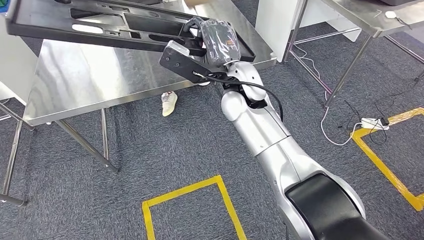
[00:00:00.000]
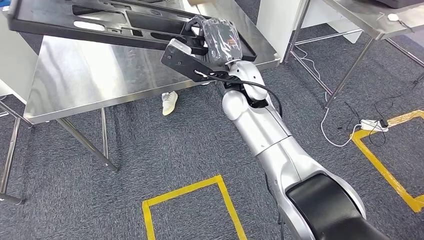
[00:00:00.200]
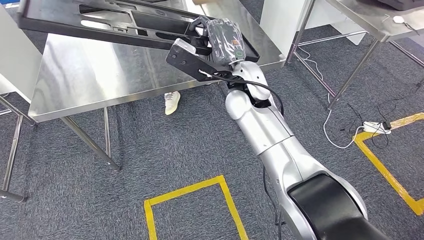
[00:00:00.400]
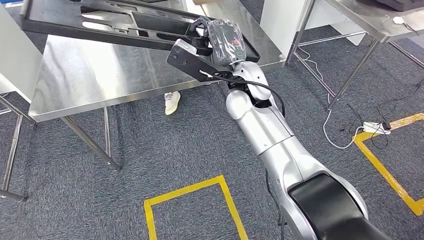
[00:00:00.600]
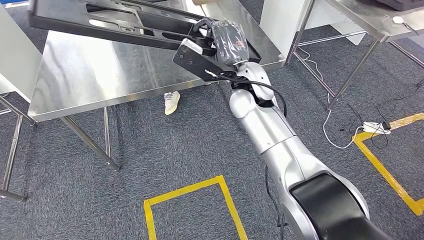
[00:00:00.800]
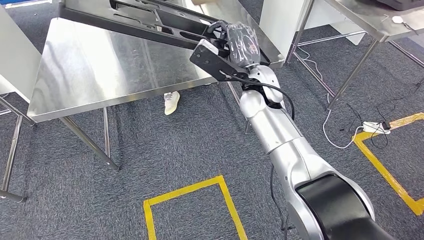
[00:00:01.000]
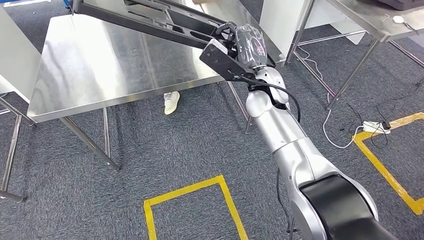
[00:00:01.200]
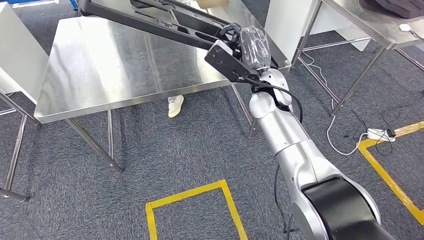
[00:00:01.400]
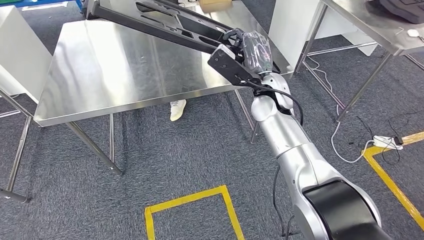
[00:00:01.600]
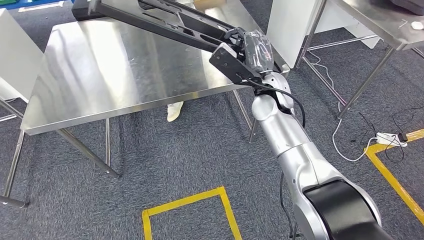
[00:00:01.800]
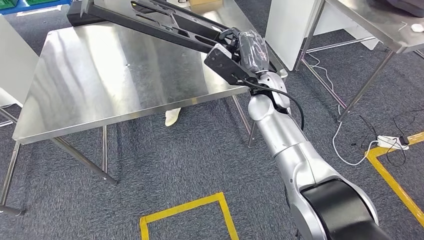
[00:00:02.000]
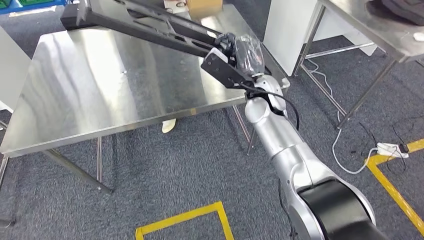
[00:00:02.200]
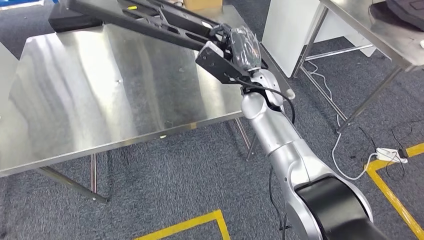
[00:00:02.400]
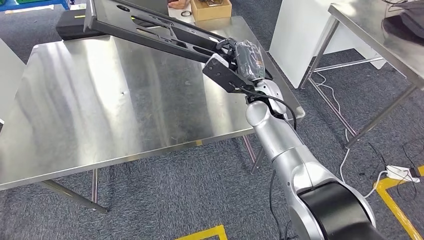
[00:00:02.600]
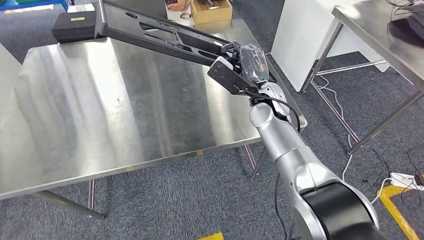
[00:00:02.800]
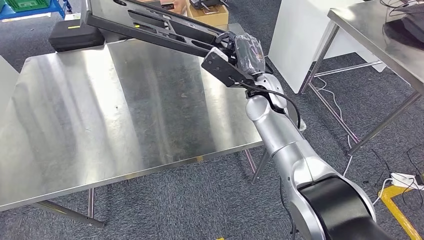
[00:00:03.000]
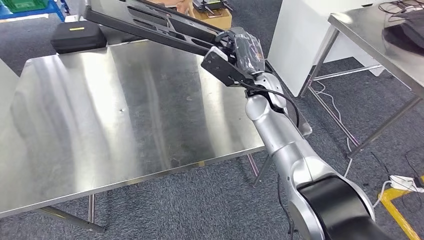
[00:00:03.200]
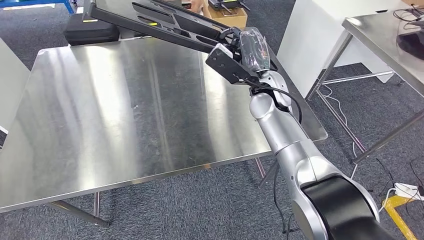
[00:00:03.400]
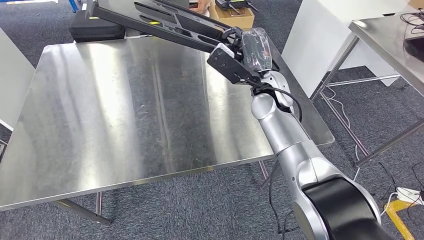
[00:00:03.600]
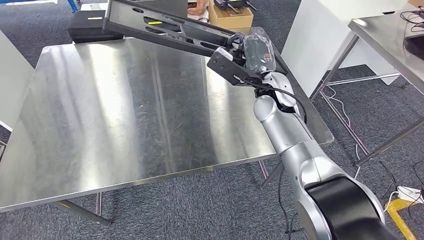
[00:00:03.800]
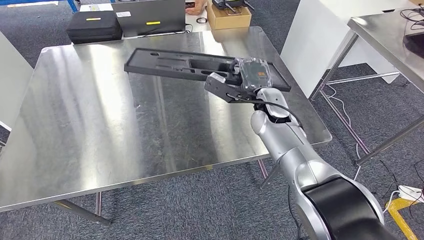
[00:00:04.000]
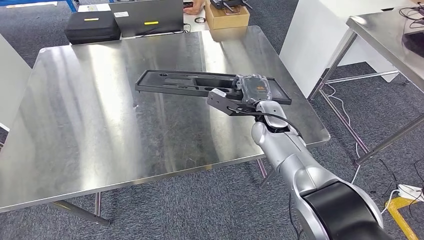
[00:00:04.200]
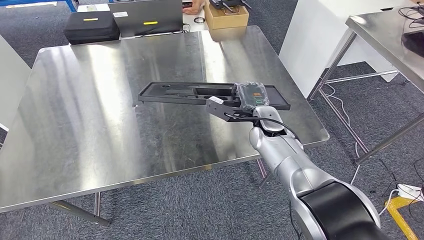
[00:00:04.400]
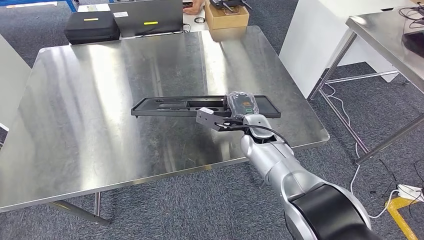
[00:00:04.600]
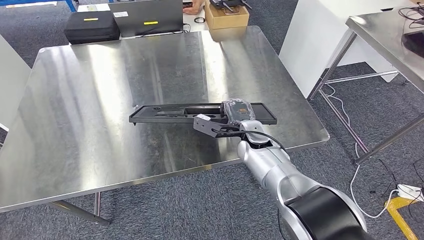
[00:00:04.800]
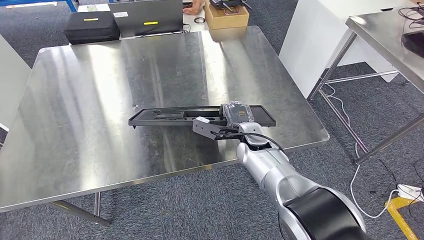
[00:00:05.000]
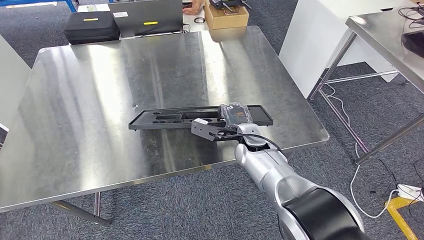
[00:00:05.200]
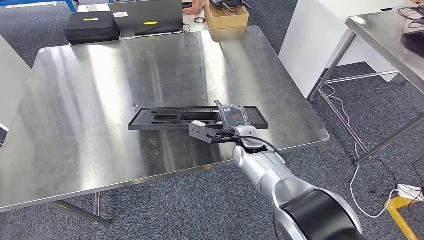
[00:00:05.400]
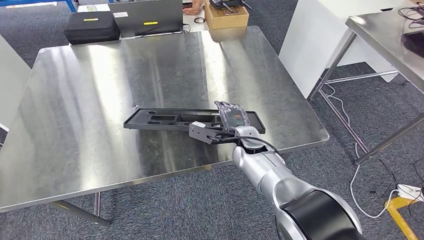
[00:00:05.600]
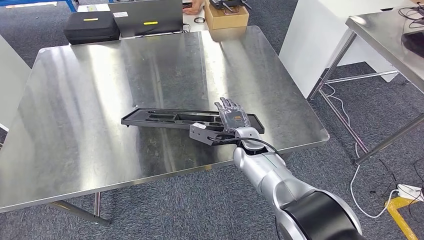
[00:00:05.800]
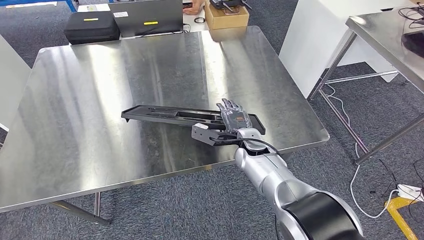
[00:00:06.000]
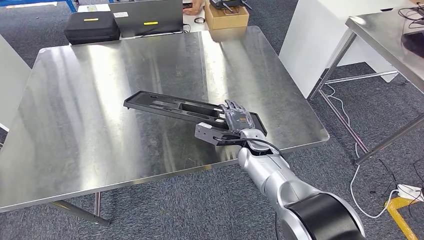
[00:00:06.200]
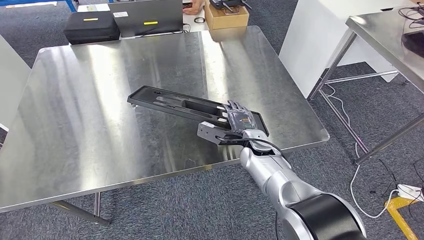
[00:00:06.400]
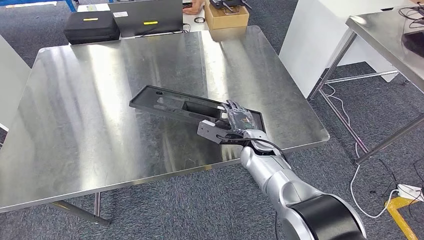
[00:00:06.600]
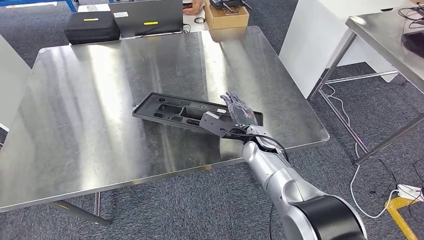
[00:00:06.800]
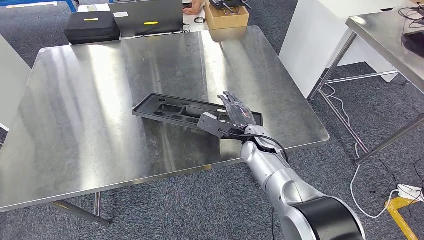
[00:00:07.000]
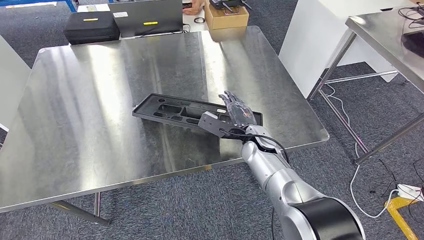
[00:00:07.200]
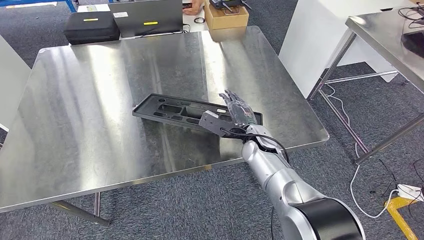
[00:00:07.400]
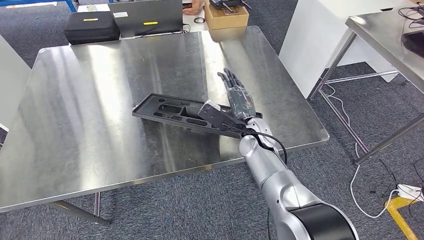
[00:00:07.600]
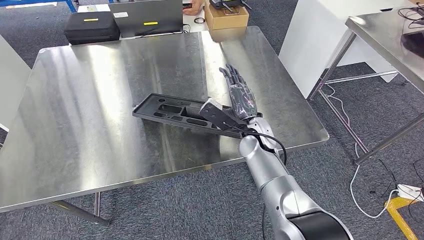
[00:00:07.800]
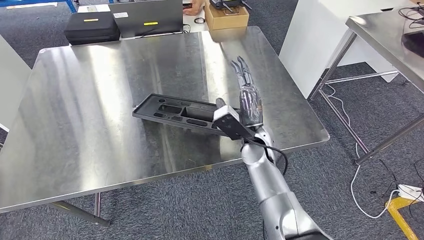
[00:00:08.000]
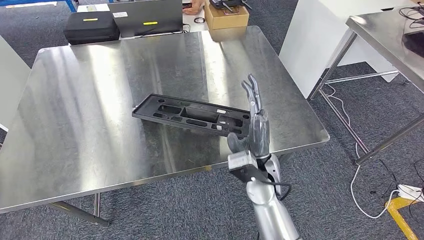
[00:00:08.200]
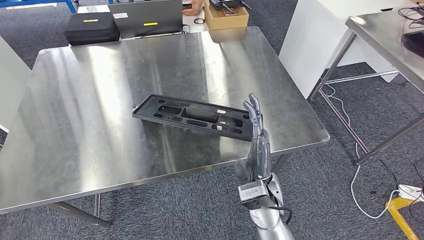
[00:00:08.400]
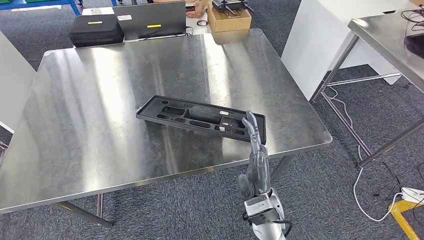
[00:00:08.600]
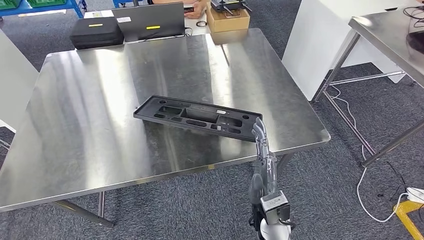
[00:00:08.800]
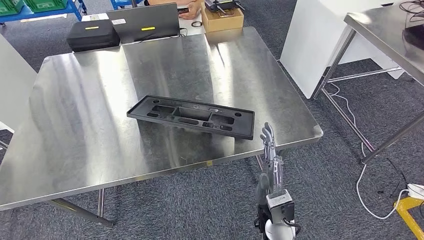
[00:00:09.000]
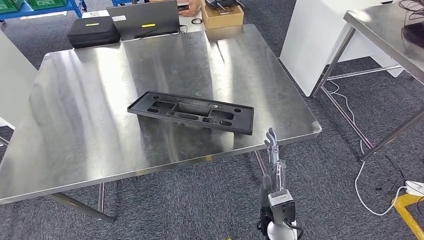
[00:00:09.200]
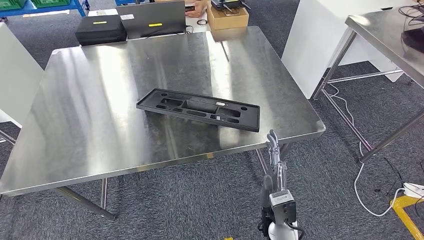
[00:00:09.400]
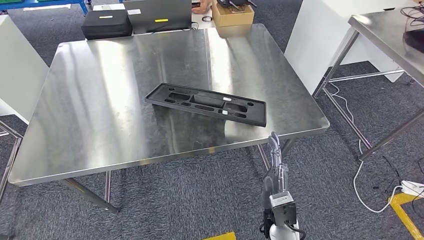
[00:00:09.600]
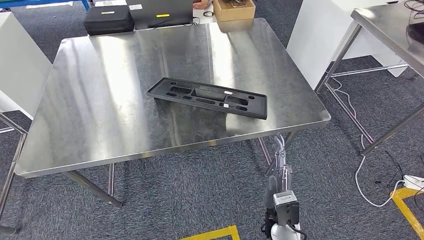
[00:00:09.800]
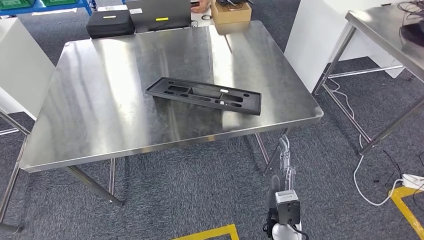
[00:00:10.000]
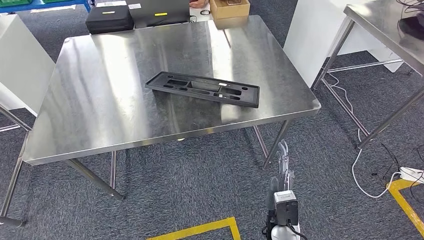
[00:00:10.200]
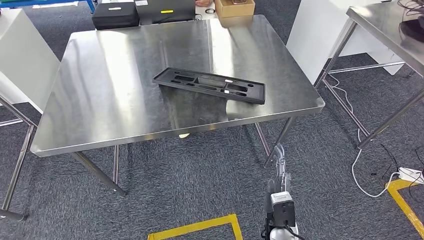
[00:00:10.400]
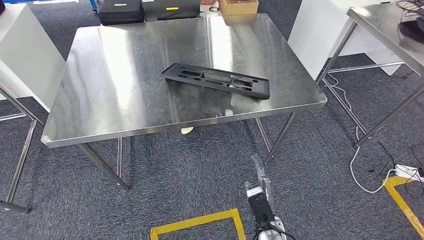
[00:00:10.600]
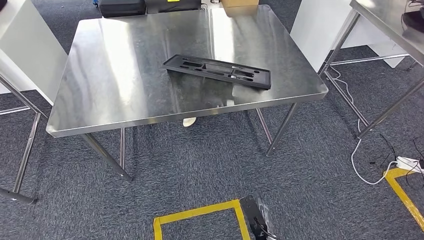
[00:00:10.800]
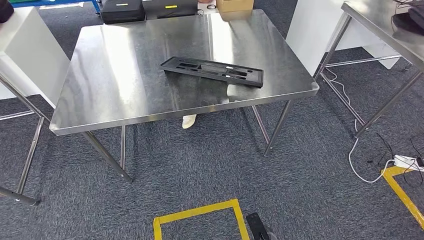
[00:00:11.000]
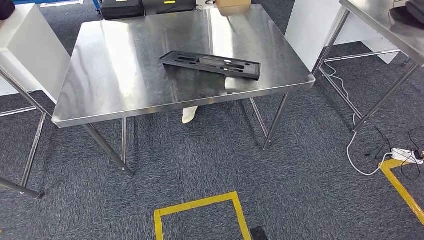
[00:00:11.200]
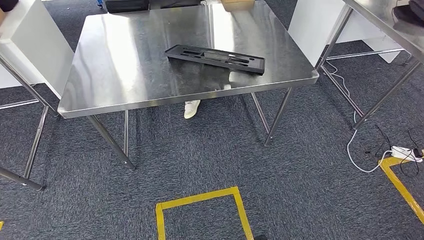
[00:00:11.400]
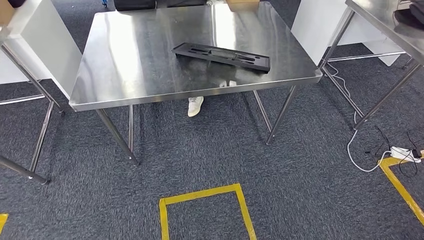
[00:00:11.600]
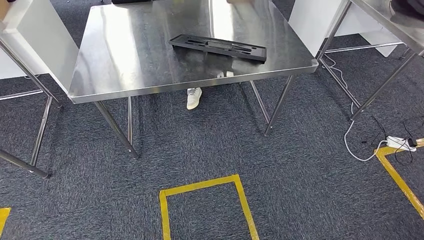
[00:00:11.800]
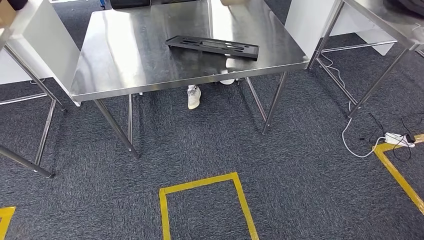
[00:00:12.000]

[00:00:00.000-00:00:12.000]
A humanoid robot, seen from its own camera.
Step, 00:00:00.000 to 00:00:11.800: Insert the large material into the corresponding slot on the workbench.
00:00:04.400 to 00:00:06.000: The right hand goes about 5 cm downward.

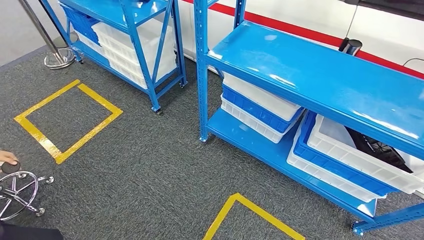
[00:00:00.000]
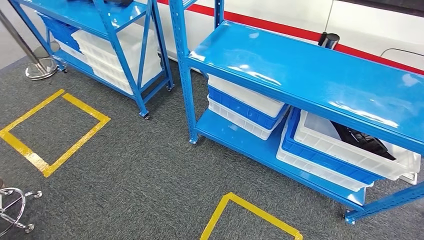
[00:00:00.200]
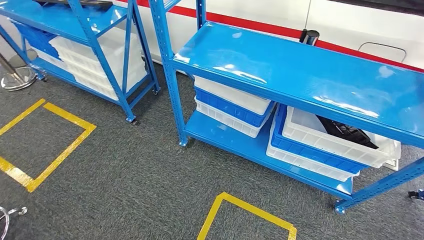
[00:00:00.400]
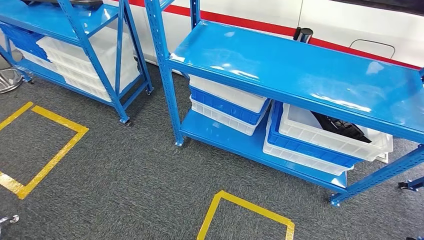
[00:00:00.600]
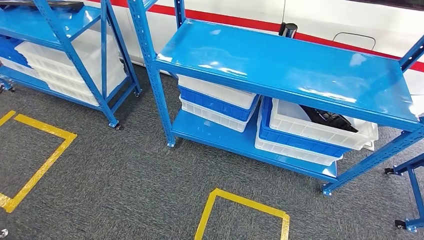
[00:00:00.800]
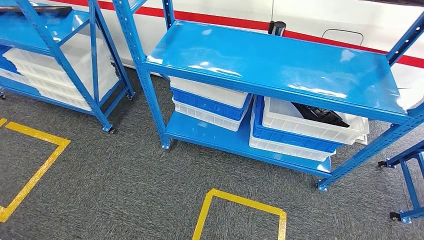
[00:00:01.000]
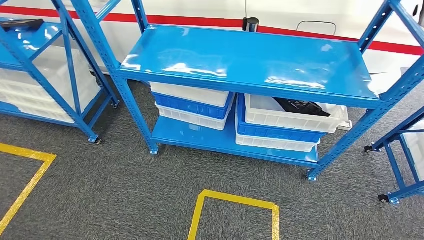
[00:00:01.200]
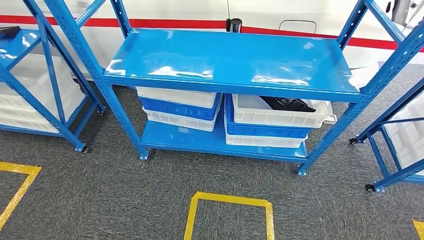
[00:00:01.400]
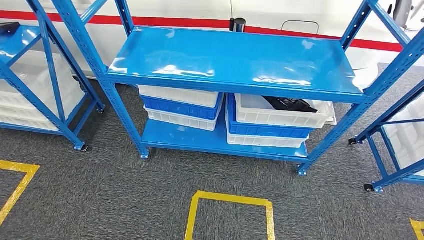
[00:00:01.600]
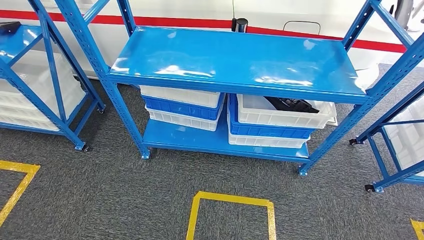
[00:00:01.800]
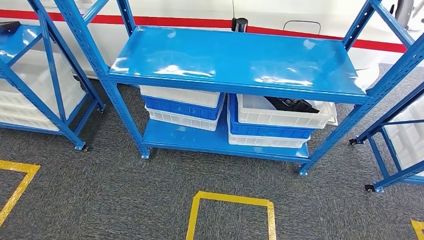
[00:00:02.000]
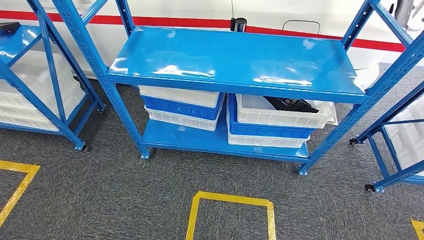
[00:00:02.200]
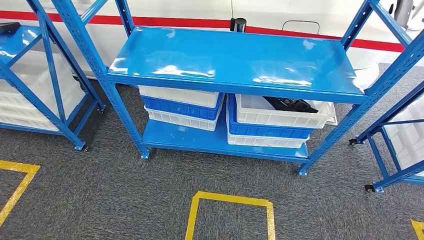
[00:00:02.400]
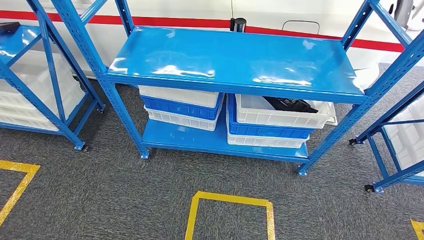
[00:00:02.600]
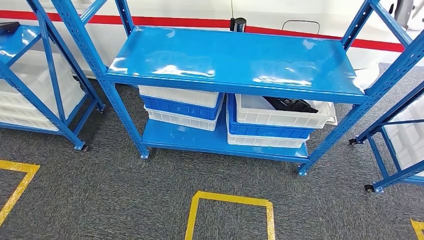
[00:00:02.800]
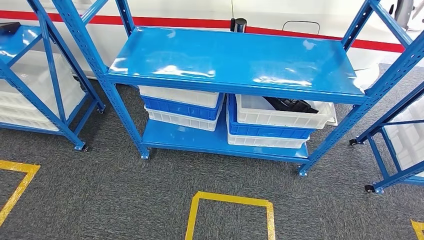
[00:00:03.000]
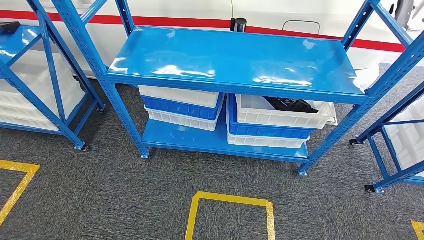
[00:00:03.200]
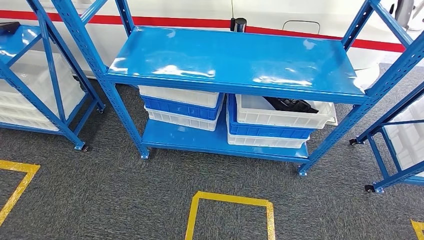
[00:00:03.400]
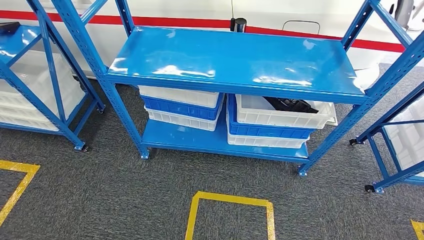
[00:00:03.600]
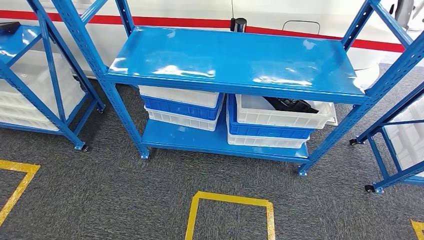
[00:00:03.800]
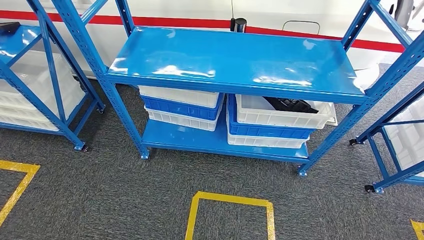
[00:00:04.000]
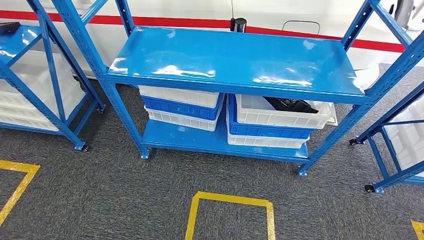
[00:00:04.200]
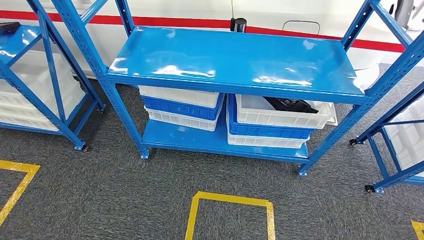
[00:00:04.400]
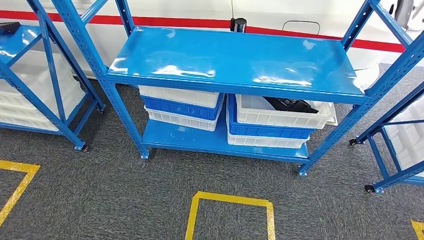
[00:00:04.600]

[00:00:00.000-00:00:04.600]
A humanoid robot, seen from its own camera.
Step, 00:00:00.000 to 00:00:04.600: Return to the initial position at the shelf.
00:00:01.600 to 00:00:03.000: There are only small adjustments of the hands.
